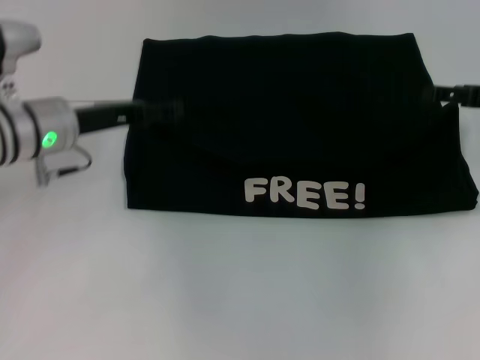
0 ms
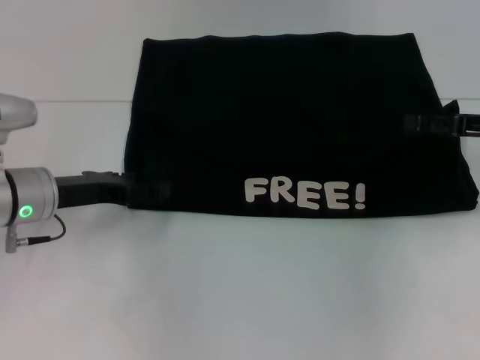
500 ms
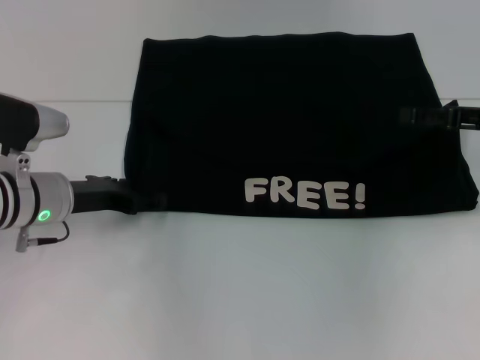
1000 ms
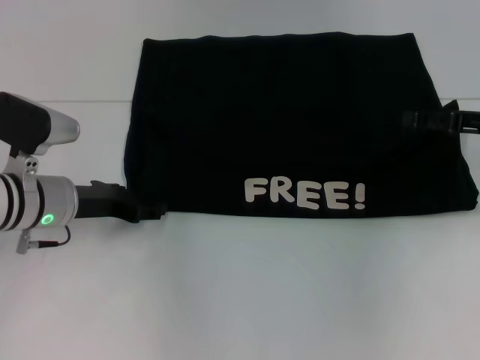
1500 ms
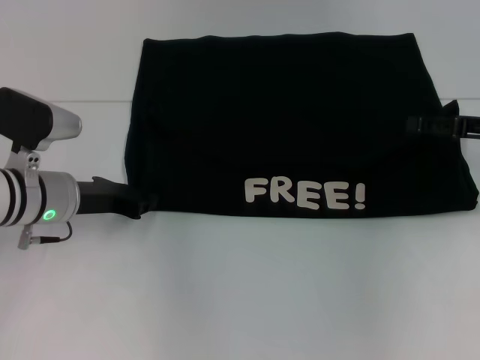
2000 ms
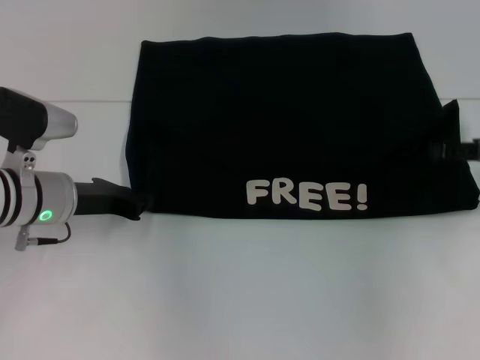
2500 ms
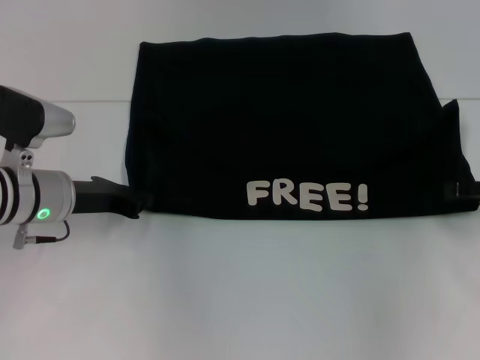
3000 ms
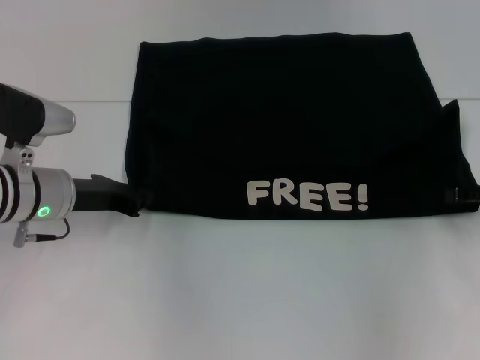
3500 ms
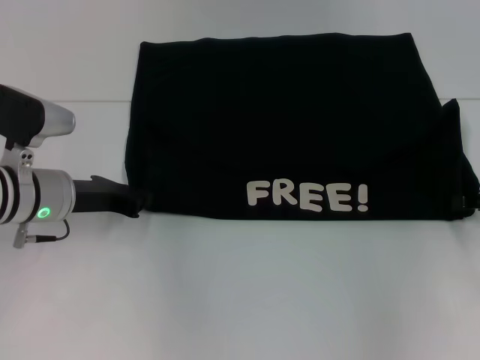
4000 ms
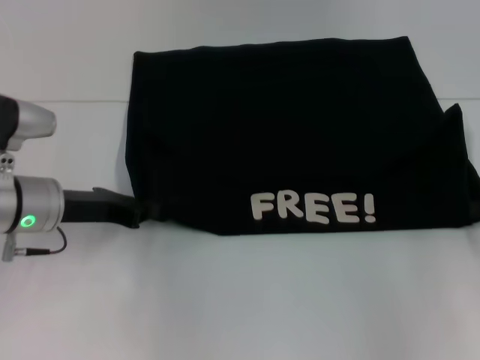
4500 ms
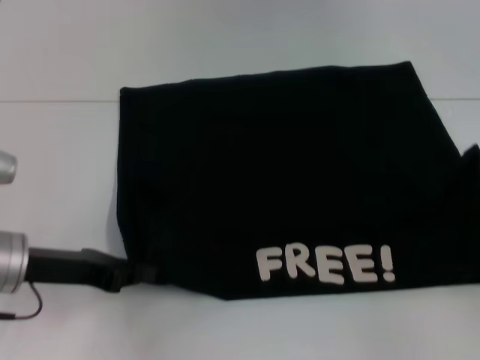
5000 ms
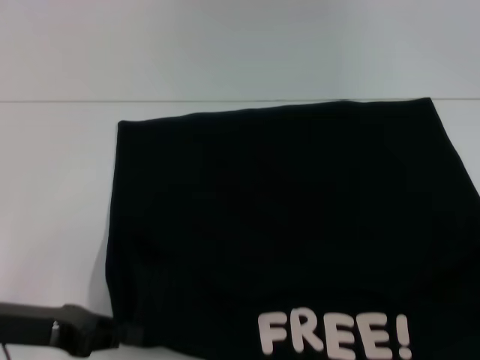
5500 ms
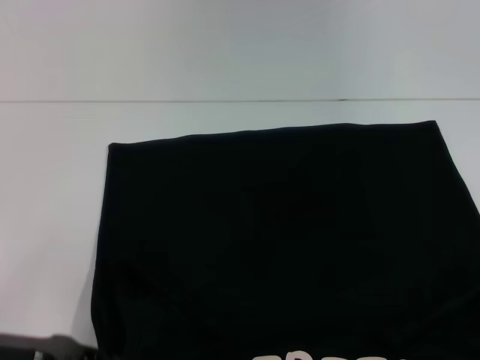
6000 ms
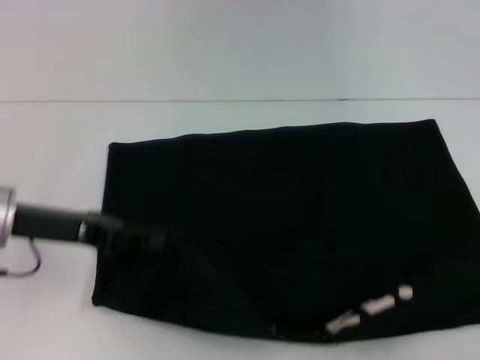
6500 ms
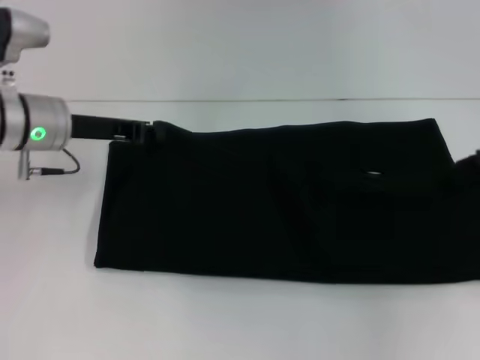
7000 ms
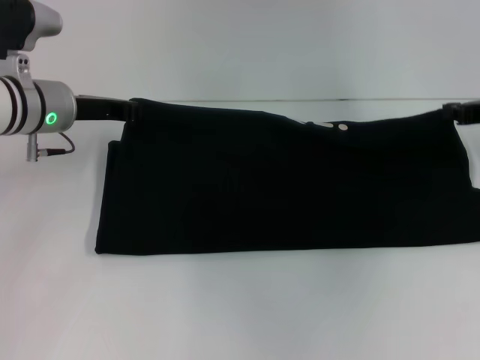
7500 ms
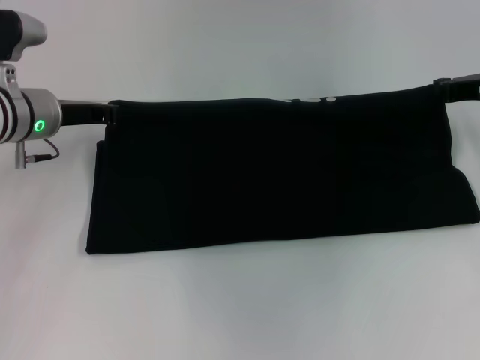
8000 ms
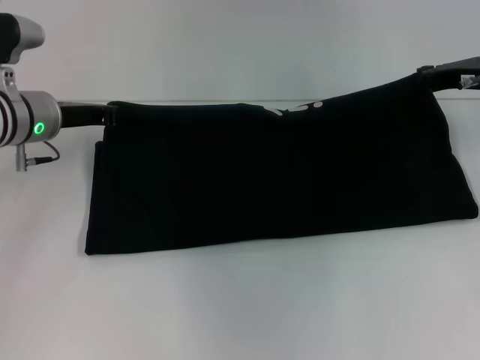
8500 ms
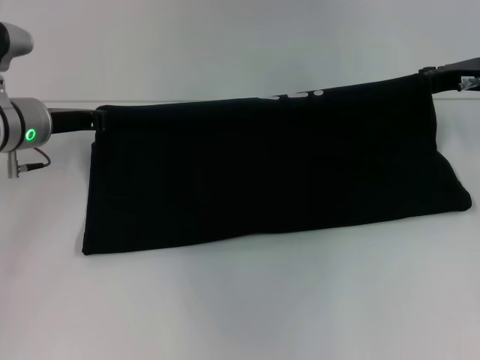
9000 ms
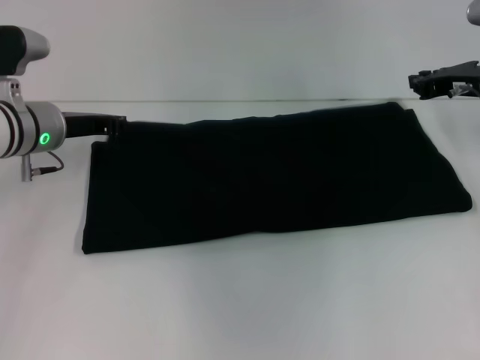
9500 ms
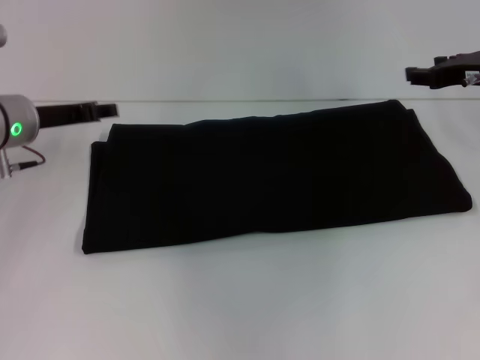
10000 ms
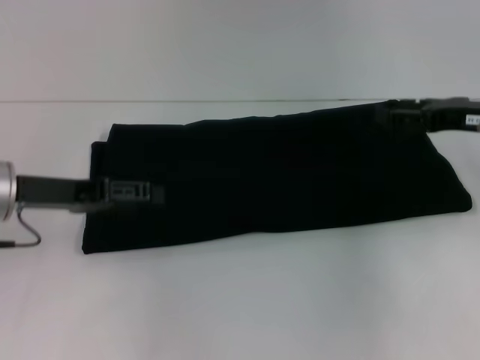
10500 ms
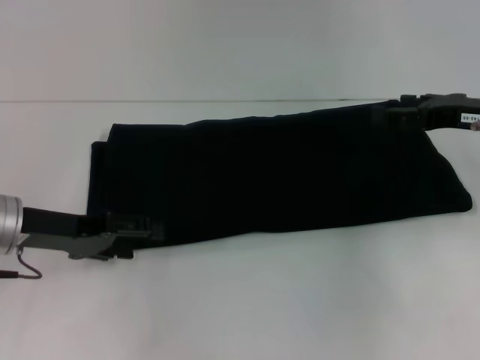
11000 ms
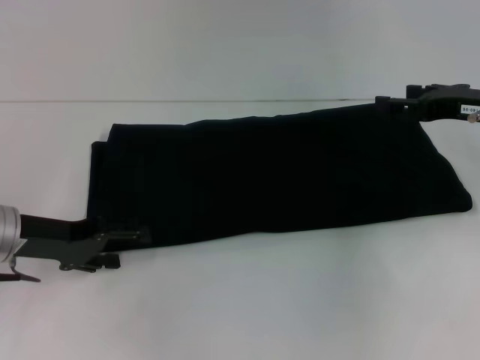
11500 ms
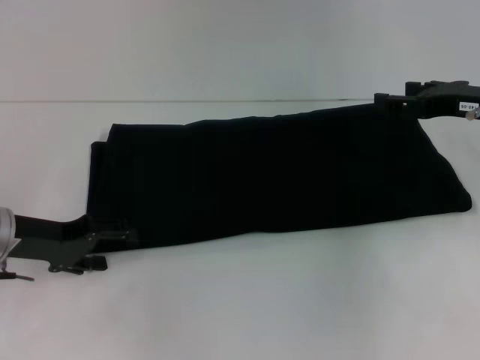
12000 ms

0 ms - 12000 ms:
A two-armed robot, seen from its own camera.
Step, 500 ms - 5500 ms: Pull the clothes with your left hand.
Step, 500 ms - 5500 ms: Pull the clothes with your right hand.
Step, 6000 ms - 9500 ms: Fold the clothes with your right hand.
0 ms - 2000 ms: The left gripper changes place by some 5 cm.
2000 ms - 4000 ms: The right gripper shifts by some 5 cm, and closes its fingers. The left gripper closes up.
4000 ms - 6000 ms: Both grippers move backward, some 20 cm. The right gripper closes.
6000 ms - 8000 ms: Both grippers travel together forward, approximately 25 cm.
8000 ms - 10000 ms: The right gripper opens up, while the left gripper opens up.
10000 ms - 12000 ms: The right gripper opens up. Meanwhile the left gripper travels backward by some 10 cm, and opens.

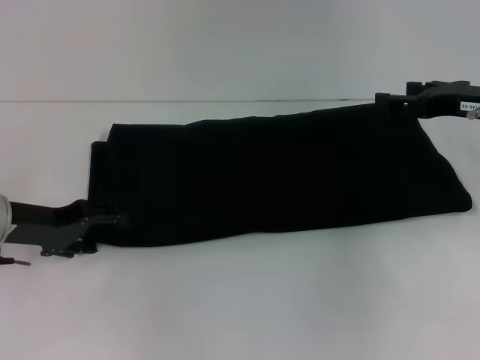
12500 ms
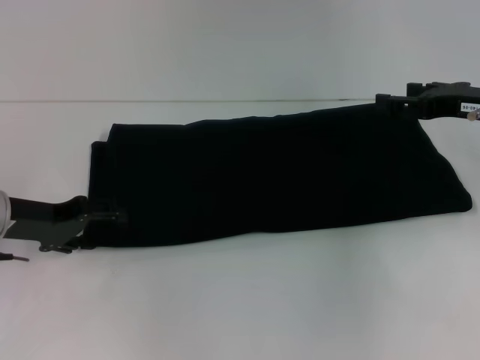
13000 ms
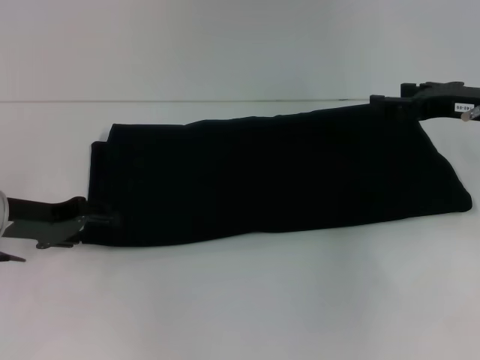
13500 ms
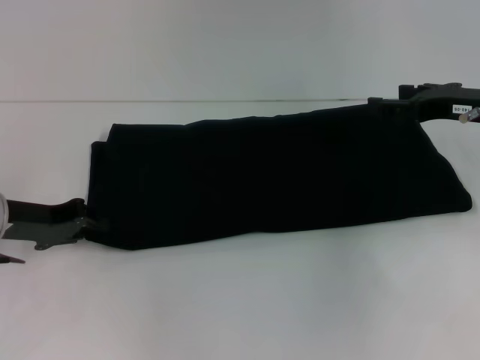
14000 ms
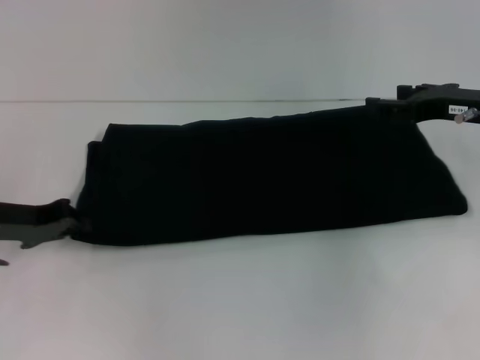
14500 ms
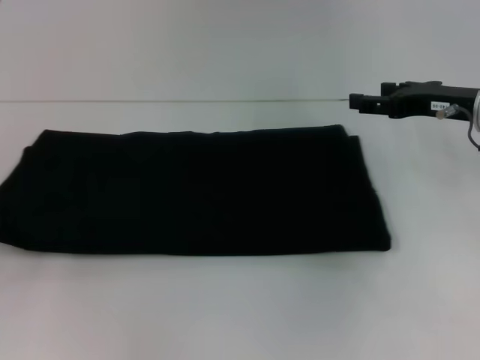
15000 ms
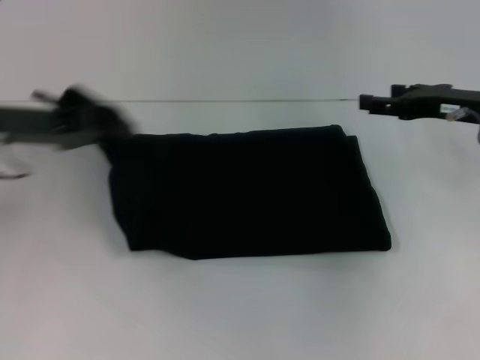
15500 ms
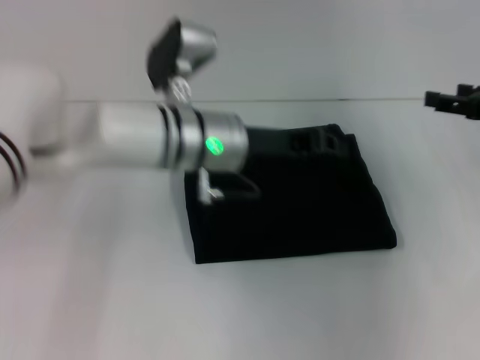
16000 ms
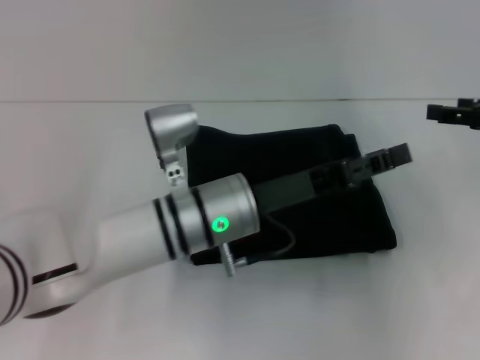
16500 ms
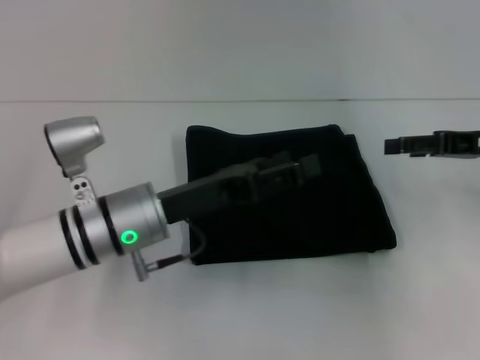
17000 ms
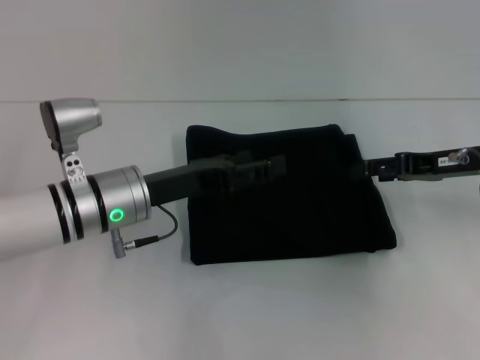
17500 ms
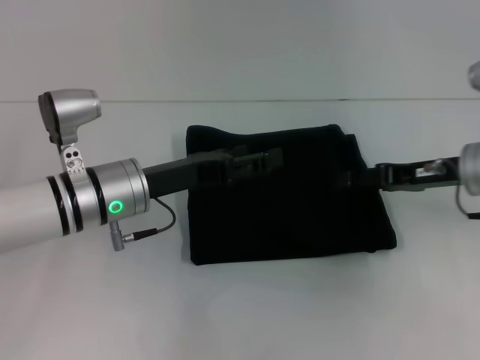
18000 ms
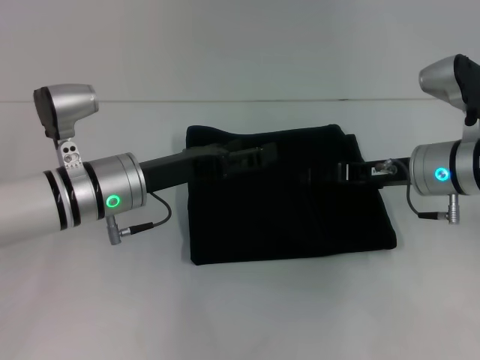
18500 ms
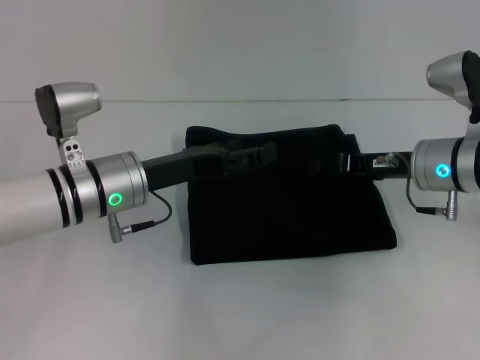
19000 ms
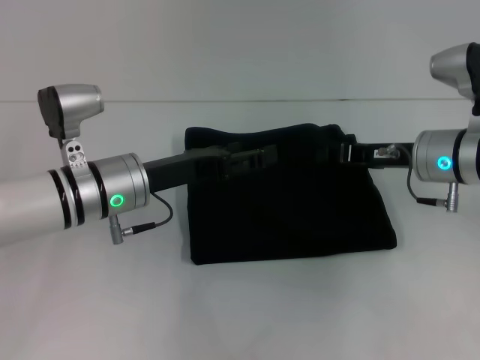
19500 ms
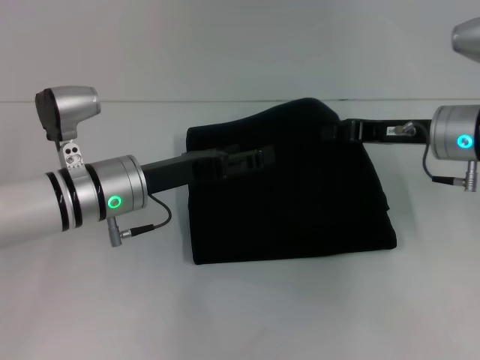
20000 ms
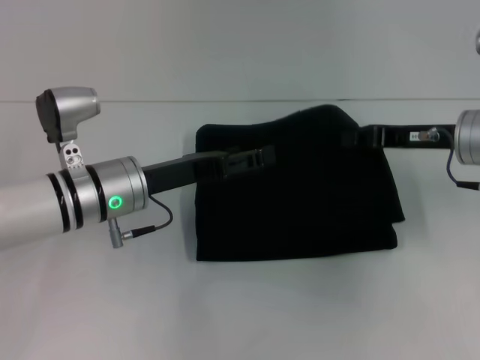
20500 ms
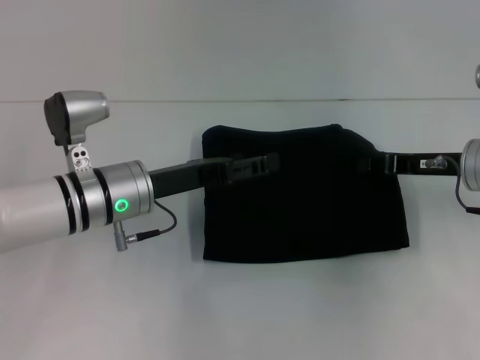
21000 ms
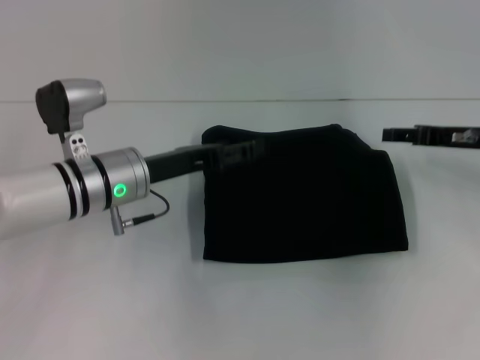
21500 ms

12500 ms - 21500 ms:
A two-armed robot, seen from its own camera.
Step, 12500 ms - 16000 ms: Fold the clothes with your left hand.
12500 ms - 14500 ms: The left gripper closes up.
14500 ms - 17000 ms: The left gripper swings left and right, approximately 35 cm each way, with 2 reversals, and opens its fingers.
17000 ms - 19500 ms: The right gripper shifts roughly 10 cm to the left, and closes its fingers.
19500 ms - 21500 ms: The right gripper shifts roughly 10 cm to the right, and opens its fingers.

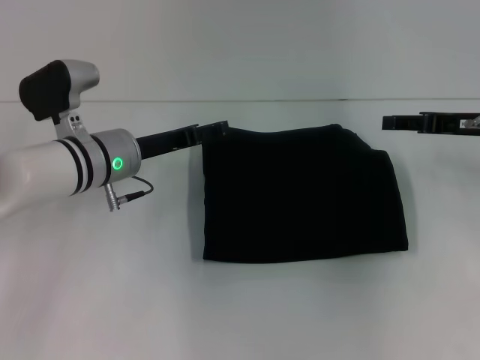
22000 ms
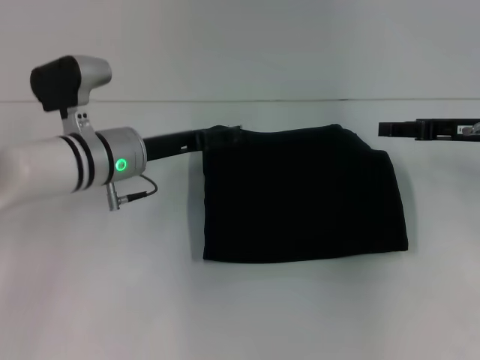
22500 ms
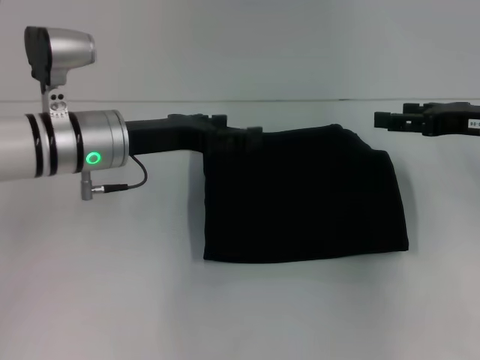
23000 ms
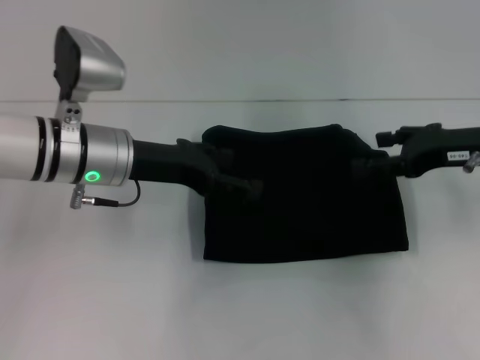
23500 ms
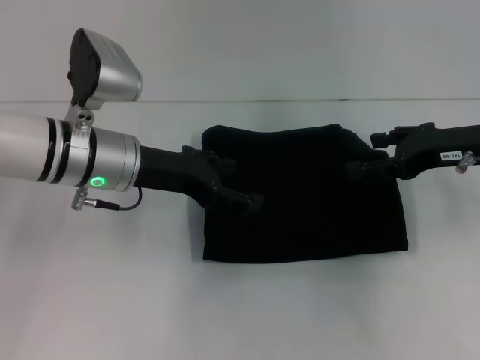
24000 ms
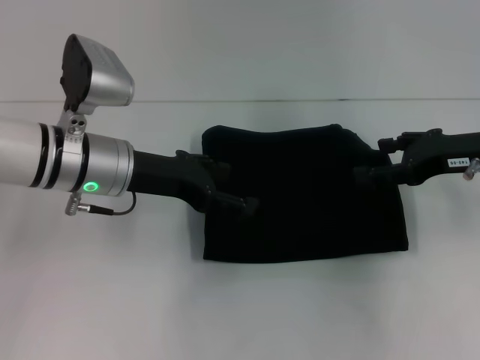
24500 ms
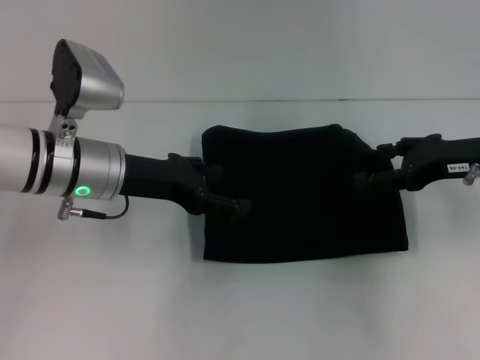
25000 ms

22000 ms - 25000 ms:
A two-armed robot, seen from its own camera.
22000 ms - 23500 ms: The left gripper travels upward by roughly 5 cm.
23500 ms - 25000 ms: The grippers make only small movements.

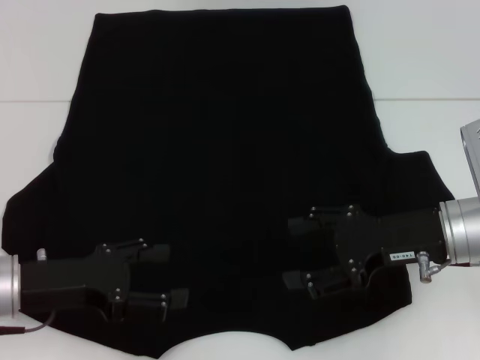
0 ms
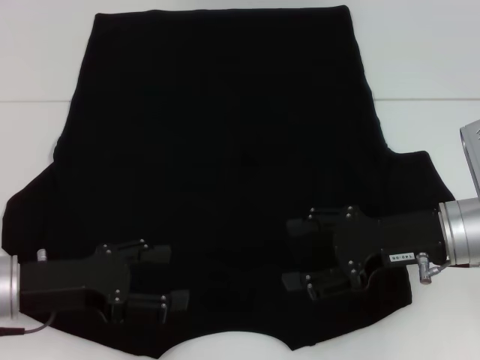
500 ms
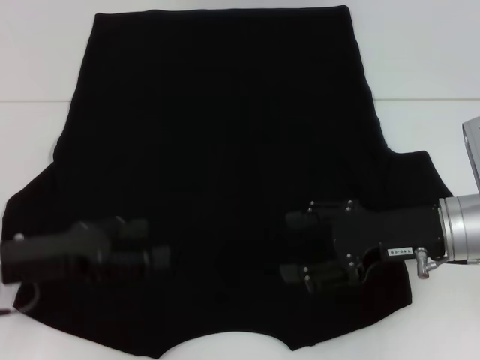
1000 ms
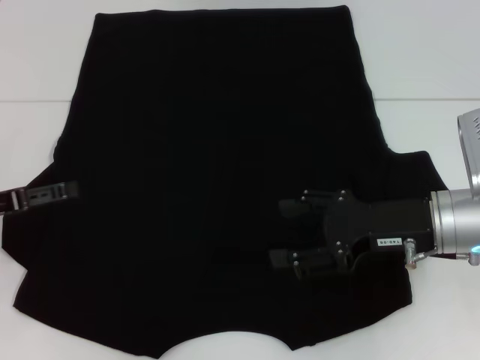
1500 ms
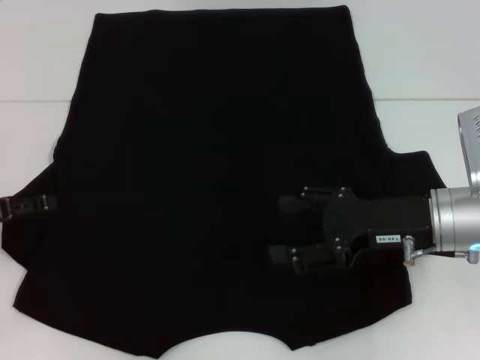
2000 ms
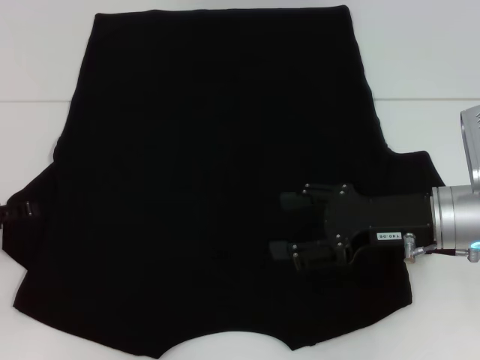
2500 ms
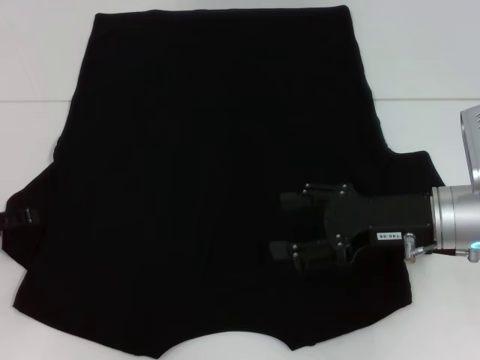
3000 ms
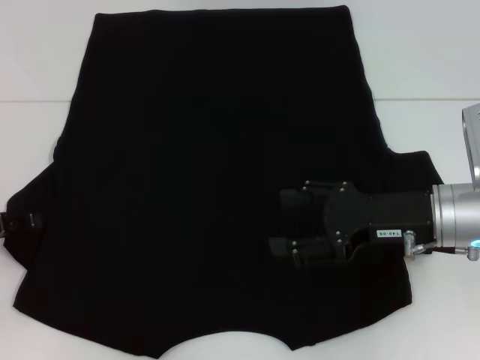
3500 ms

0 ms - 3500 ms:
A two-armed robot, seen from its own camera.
0 ms - 2000 ms: The left gripper moves to the left, about 10 cm.
2000 ms - 3500 ms: The grippers stay close to where they were, moving slightly.
